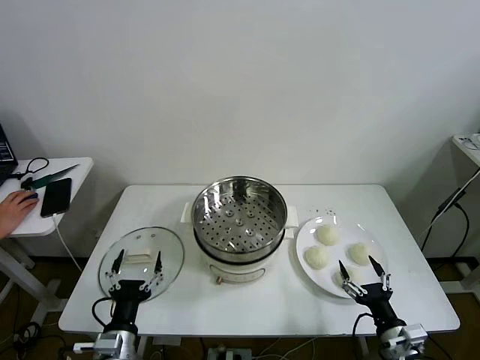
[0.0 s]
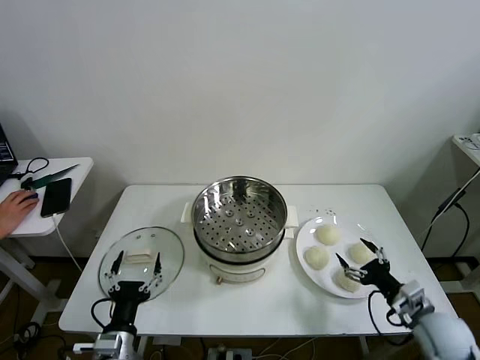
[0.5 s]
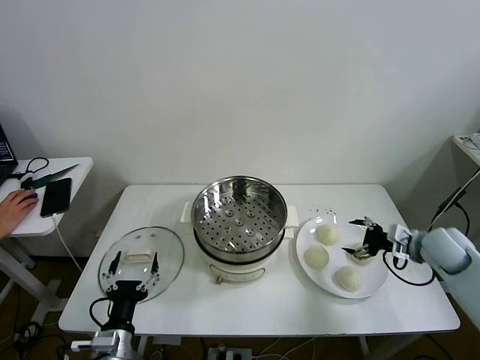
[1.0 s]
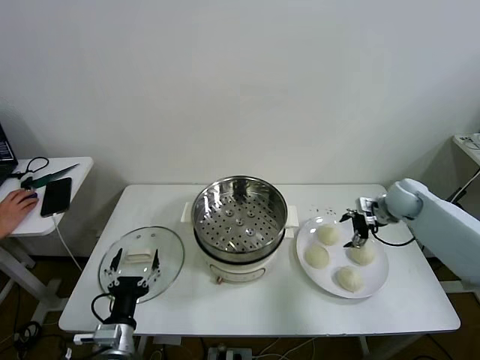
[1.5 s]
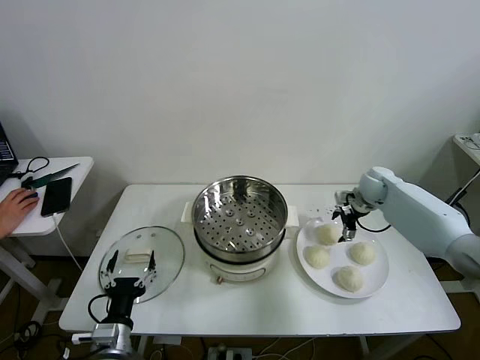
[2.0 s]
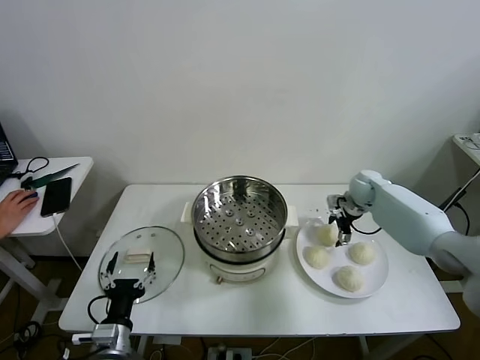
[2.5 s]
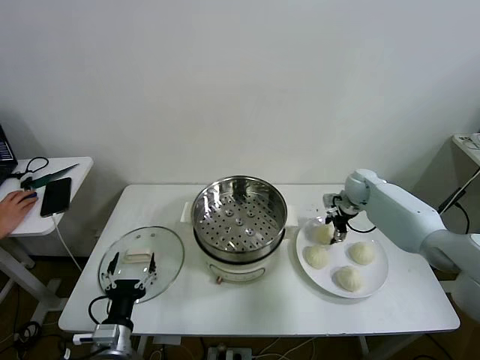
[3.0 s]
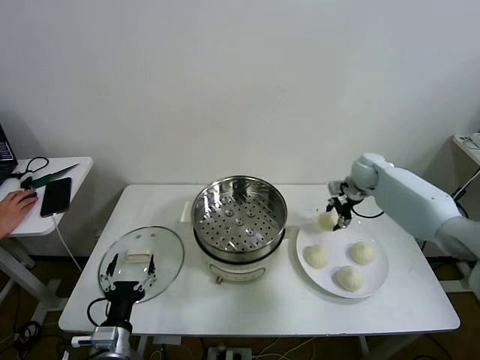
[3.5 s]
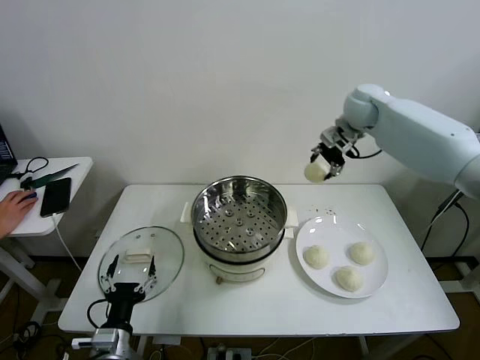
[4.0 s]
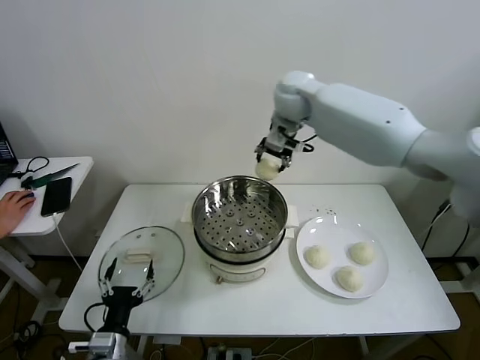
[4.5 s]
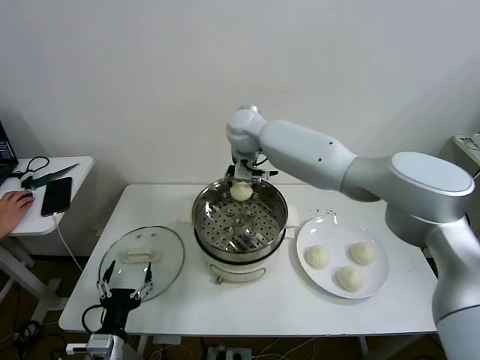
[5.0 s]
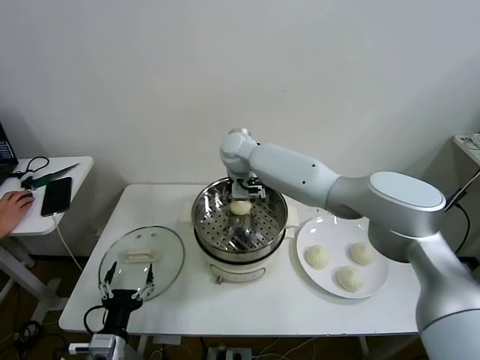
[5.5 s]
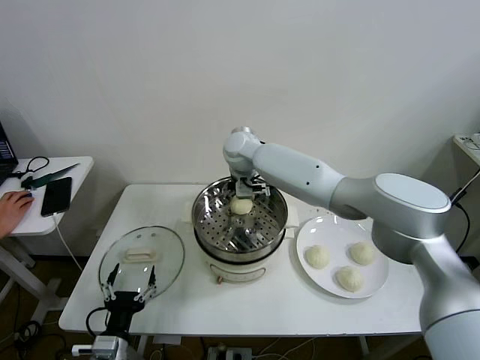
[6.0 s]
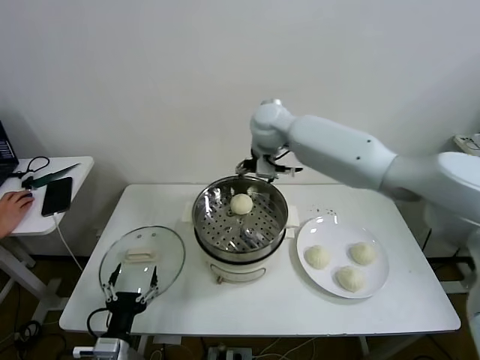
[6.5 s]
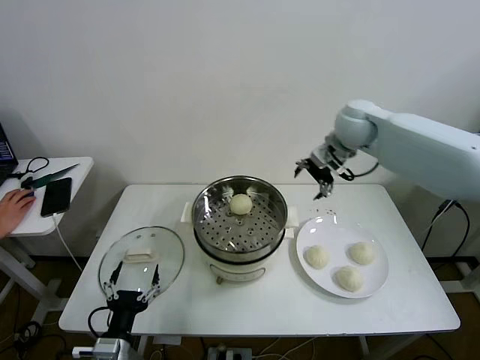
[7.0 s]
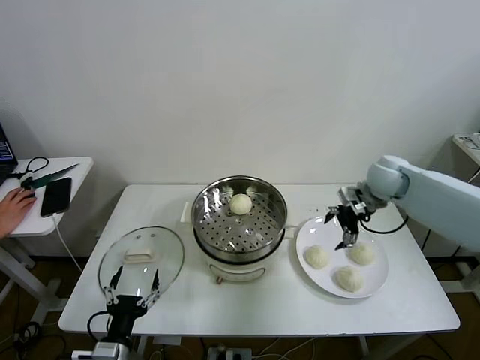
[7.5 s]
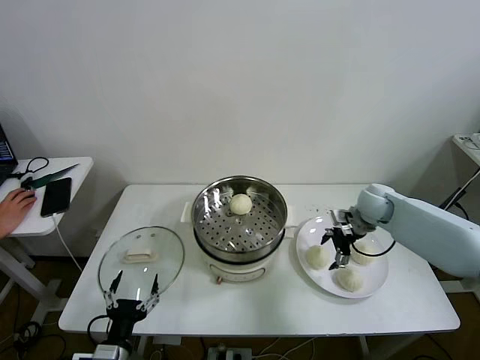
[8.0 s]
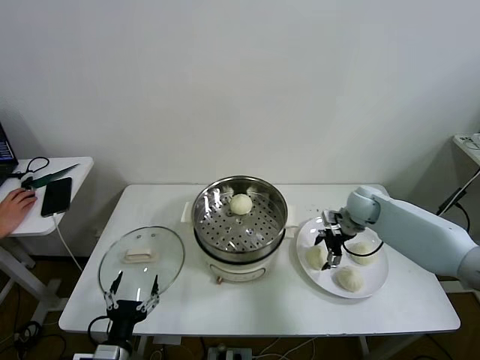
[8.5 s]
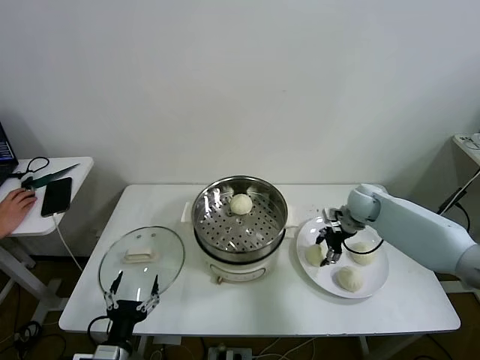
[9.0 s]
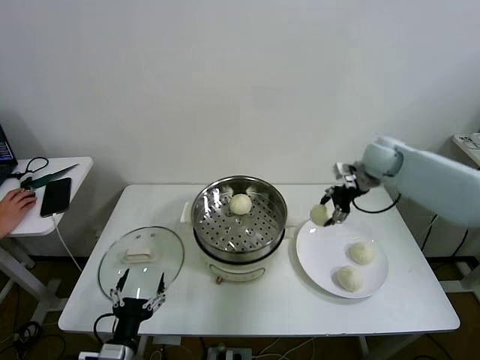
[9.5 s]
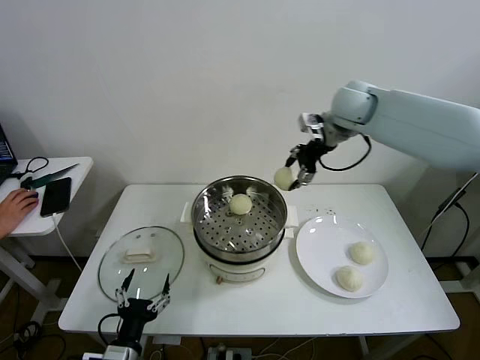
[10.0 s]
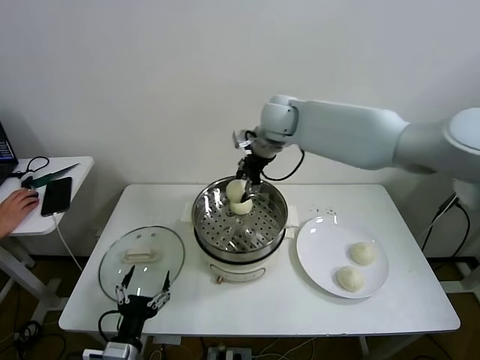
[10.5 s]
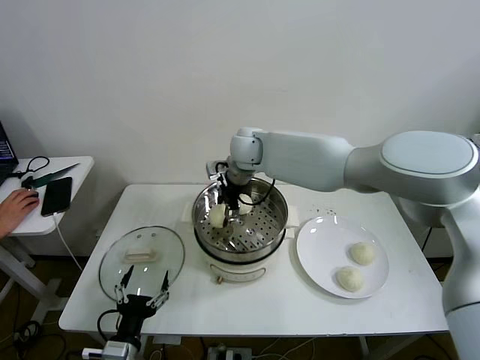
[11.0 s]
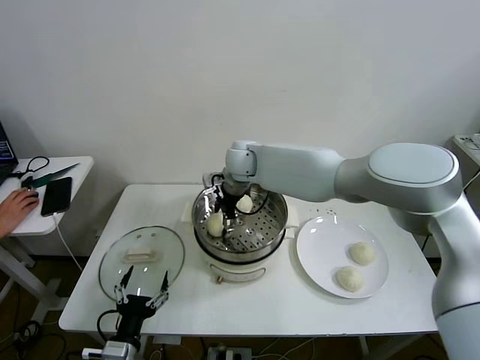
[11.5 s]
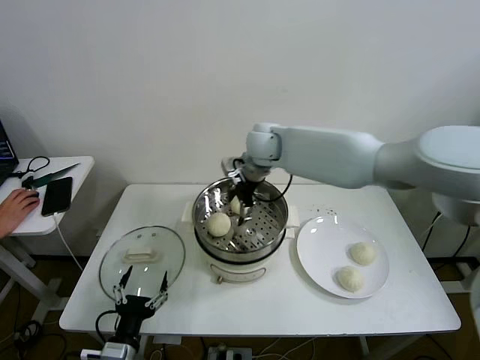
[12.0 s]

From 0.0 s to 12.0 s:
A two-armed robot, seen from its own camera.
Task of the whole recording: take steamed baozi put them in steamer then cover it.
Step, from 0.0 s to 3.0 s: Grasp the baozi in the plate with right gripper.
Step, from 3.5 s to 6.0 s: Place the baozi on the steamer with right gripper.
Step, from 6.5 s to 8.5 s: Grasp the baozi in the plate with right gripper.
Step, from 9.0 s to 11.5 s: Place the baozi on the steamer with right gripper.
From 2.0 s to 4.0 s: The right gripper goes about 25 cm upward and to the left, and closes.
From 4.0 s to 6.0 s: The right gripper heads to the left and downward, covering approximately 25 cm, and opens up.
From 6.0 s to 8.0 s: The right gripper heads to the right and downward, covering about 35 cm.
From 8.0 s to 10.0 s: The right gripper heads upward and to the left, covering some 30 cm, and closes.
From 10.0 s to 12.0 s: The right gripper is displaced to the left and downward by about 15 cm, and opens.

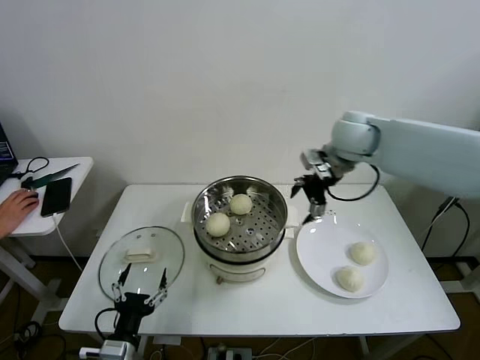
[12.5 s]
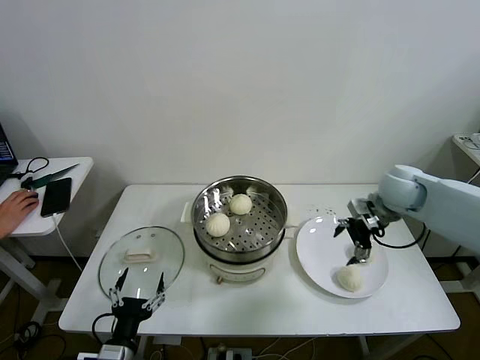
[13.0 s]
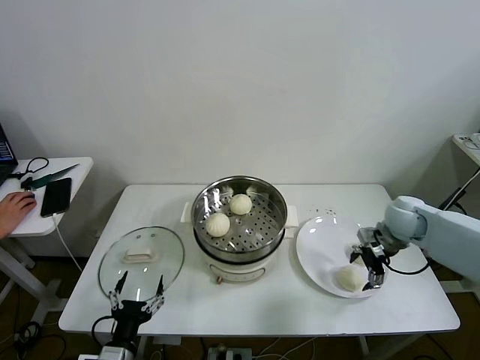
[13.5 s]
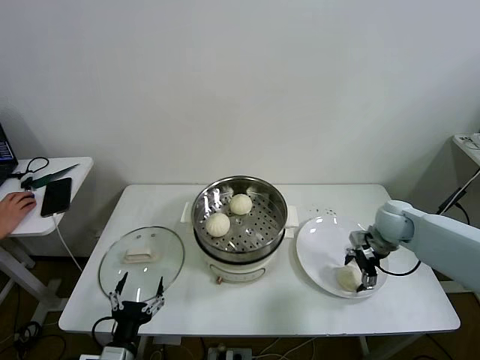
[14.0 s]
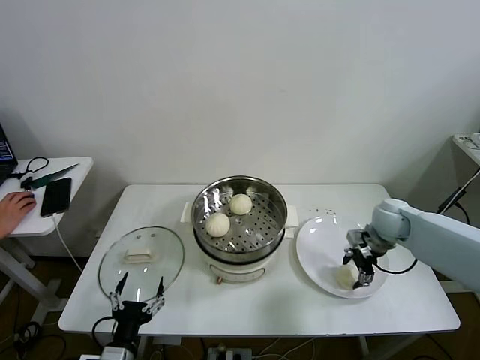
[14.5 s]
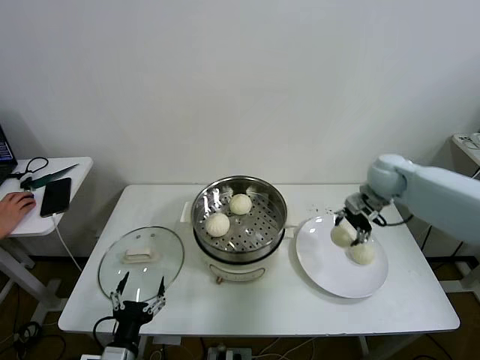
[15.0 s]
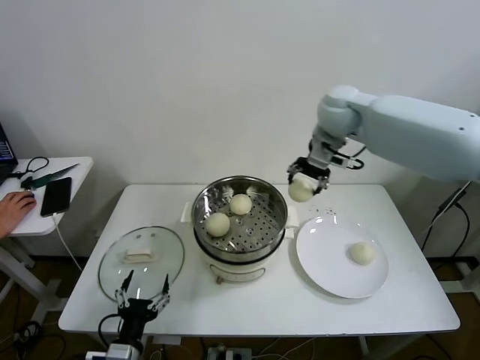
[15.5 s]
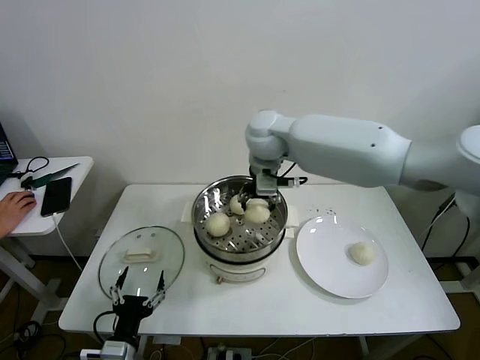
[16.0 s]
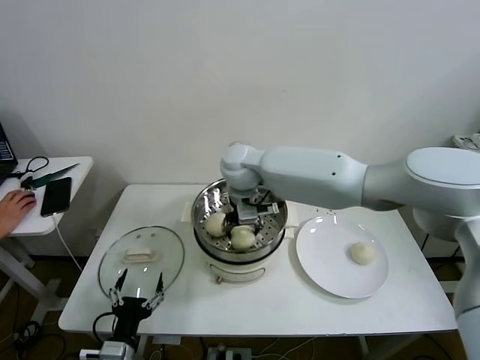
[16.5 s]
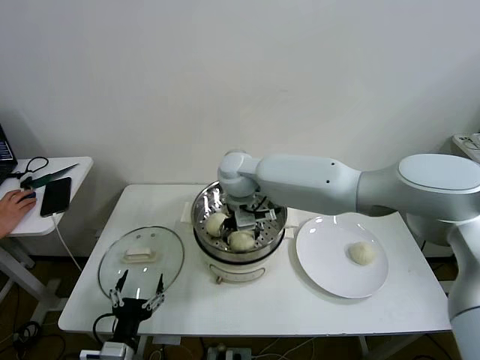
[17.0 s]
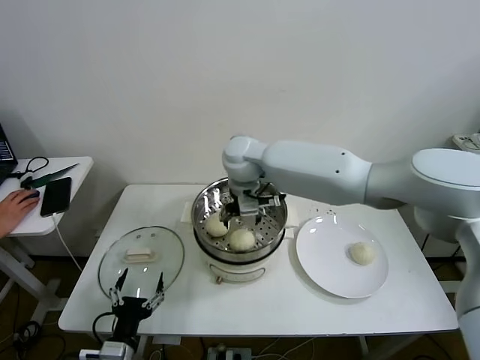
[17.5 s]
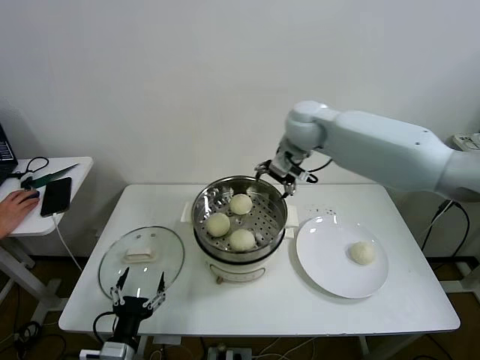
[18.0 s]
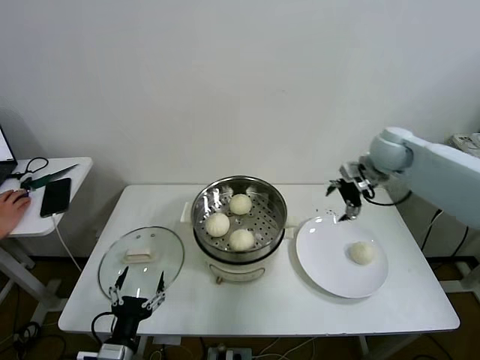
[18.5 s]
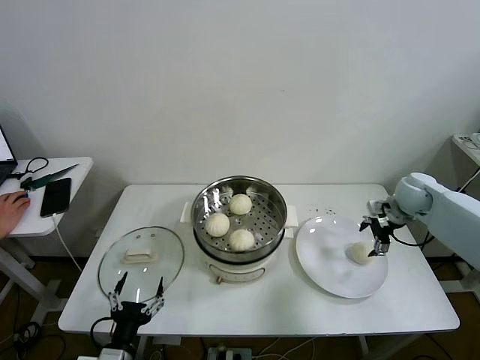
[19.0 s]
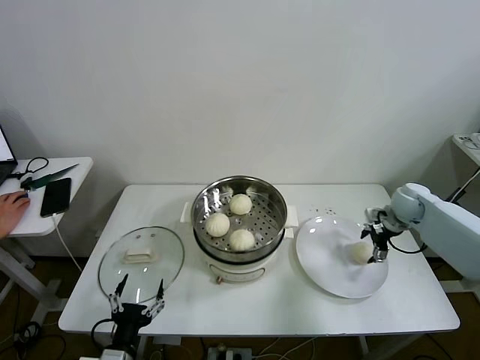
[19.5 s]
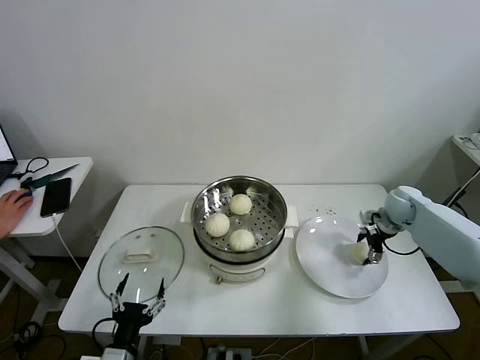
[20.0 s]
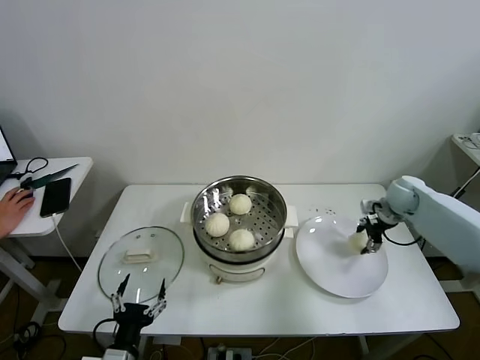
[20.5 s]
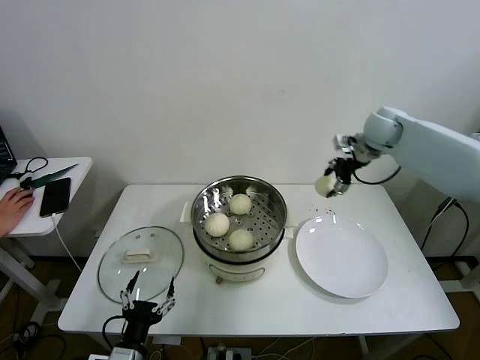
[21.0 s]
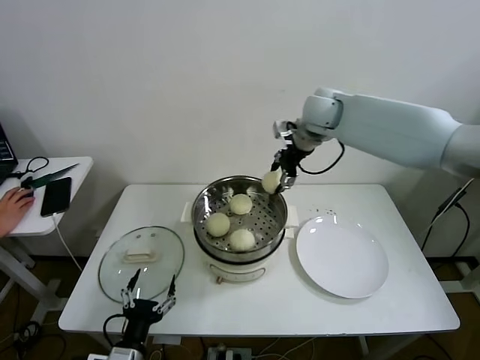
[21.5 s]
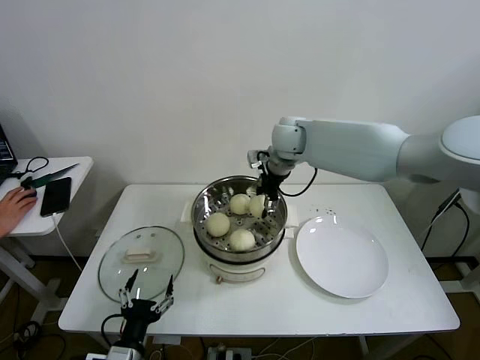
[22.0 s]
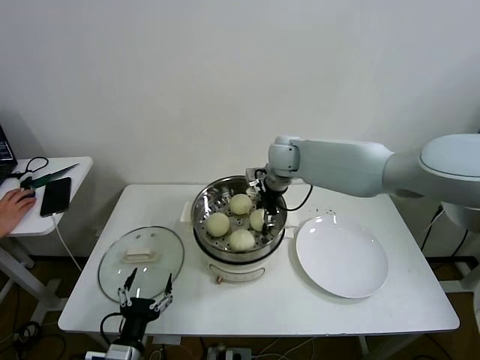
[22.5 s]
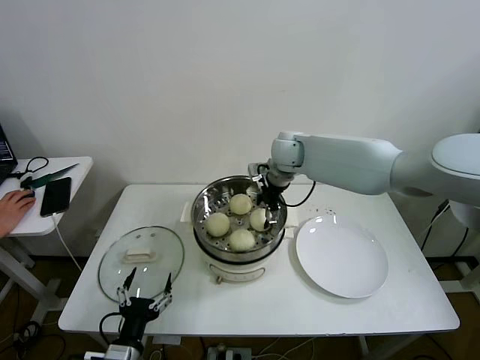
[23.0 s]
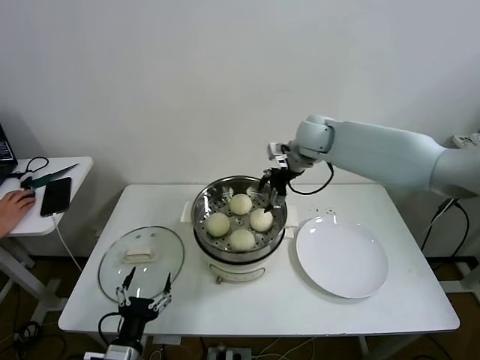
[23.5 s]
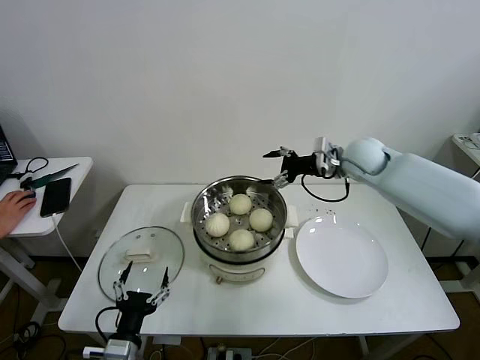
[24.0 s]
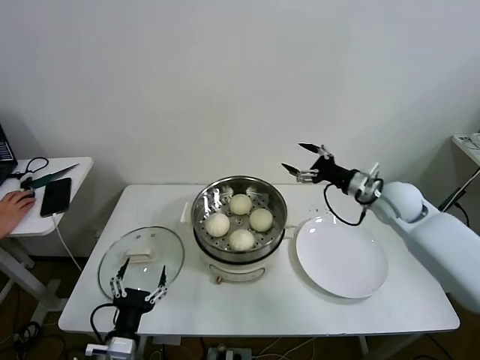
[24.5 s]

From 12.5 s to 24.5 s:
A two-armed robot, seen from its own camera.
Task of the whole recording: take steamed baozi put them in steamer then cover it.
Step, from 12.5 s to 14.5 s: Grasp the baozi in the plate with right gripper.
Step, from 15.0 s to 17.0 s: Place the baozi on the steamer with right gripper.
Step, from 17.5 s to 20.0 s: Grasp the baozi in the plate with right gripper.
Step, from 20.5 s to 22.5 s: Place the baozi on the steamer with right gripper.
From 12.5 s to 14.5 s: The right gripper goes roughly 25 cm downward and to the right, and closes up.
From 14.5 s to 16.5 s: The right gripper is displaced to the left by roughly 35 cm.
From 16.5 s to 18.5 s: The right gripper travels to the right by approximately 35 cm, and opens up.
From 18.5 s to 20.5 s: The right gripper is displaced downward and to the right by approximately 15 cm, and closes.
From 20.5 s to 22.5 s: The right gripper goes about 30 cm to the left.
From 22.5 s to 24.5 s: The right gripper moves to the right and backward, about 25 cm, and opens.

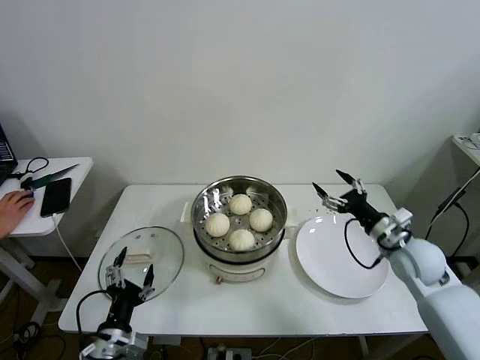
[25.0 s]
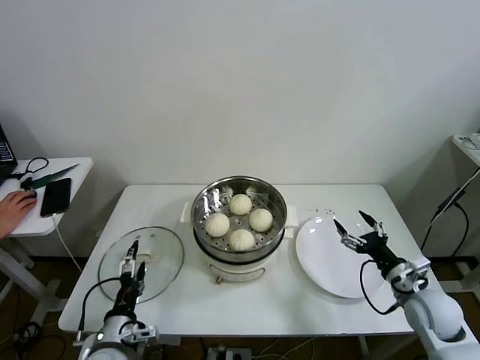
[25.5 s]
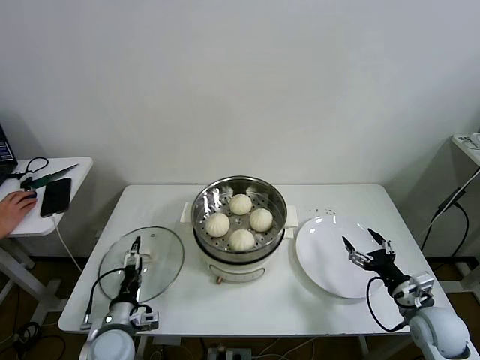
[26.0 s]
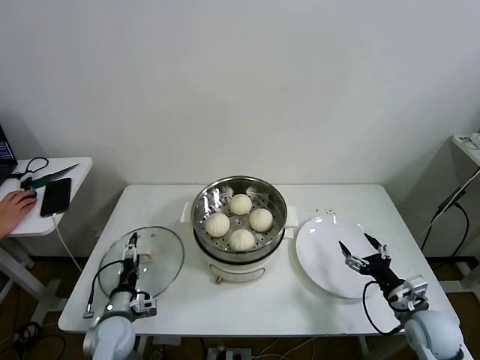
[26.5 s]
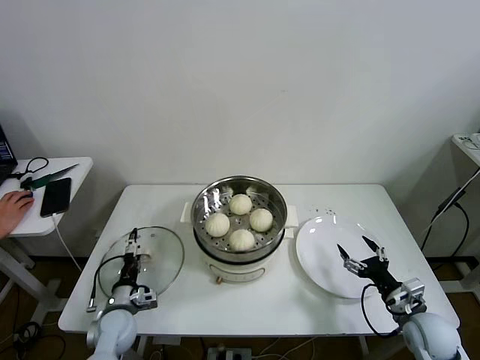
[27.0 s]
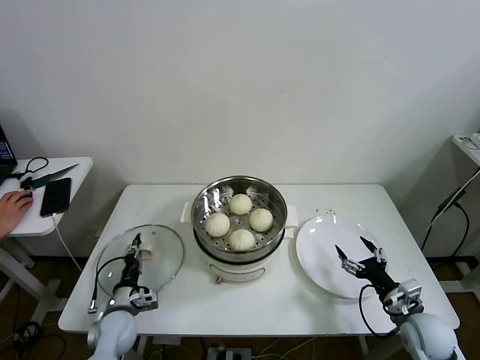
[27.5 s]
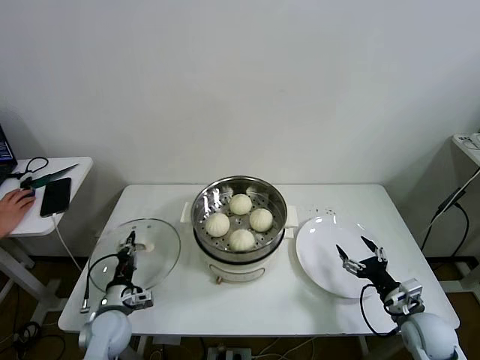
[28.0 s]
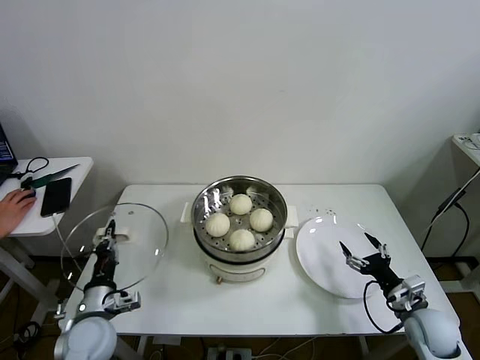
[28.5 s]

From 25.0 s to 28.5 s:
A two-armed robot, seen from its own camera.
Task of the whole recording: take steamed baozi put them in steamer then cover it.
Step, from 25.0 s to 27.5 s: Grasp the pot lid with left gripper.
From 25.0 s to 27.0 s: The left gripper heads forward and downward, covering about 15 cm. The right gripper travels backward and downward by roughly 15 cm.
From 27.0 s to 28.5 s: The left gripper shifts approximately 10 cm upward, and closes up.
